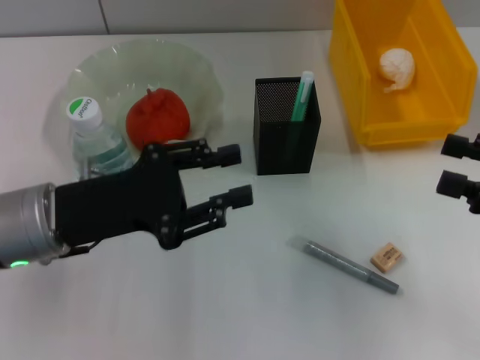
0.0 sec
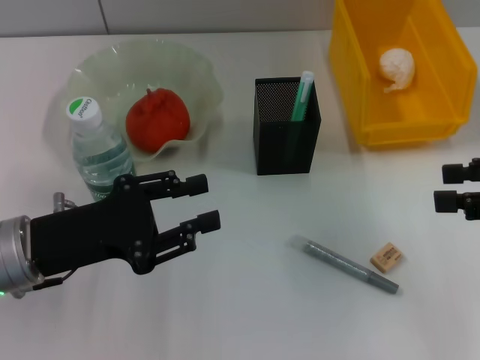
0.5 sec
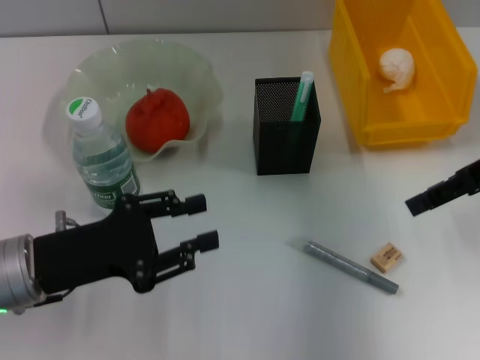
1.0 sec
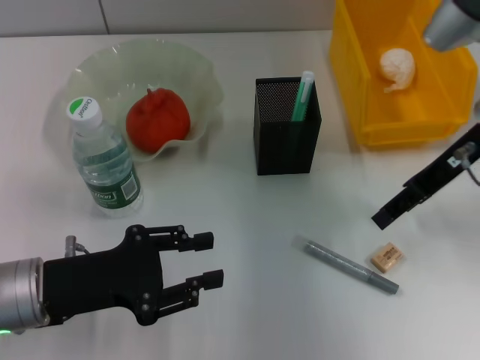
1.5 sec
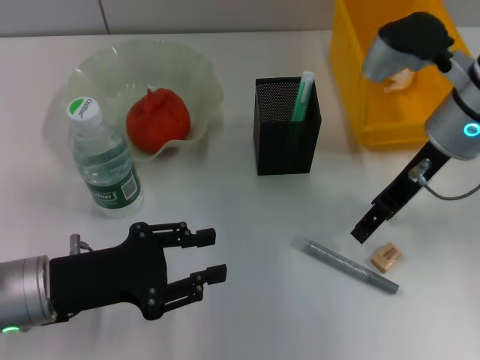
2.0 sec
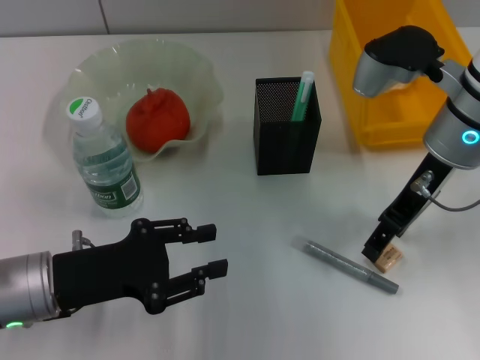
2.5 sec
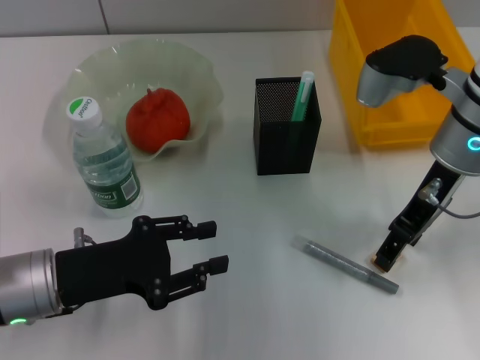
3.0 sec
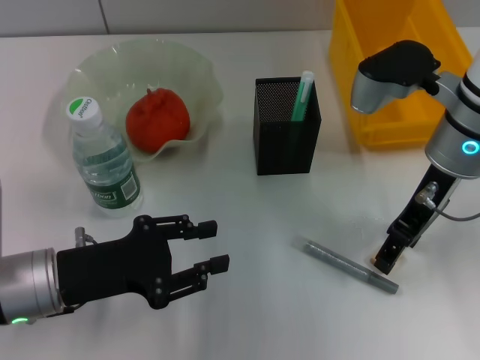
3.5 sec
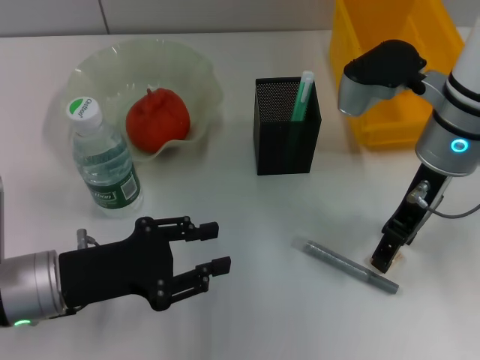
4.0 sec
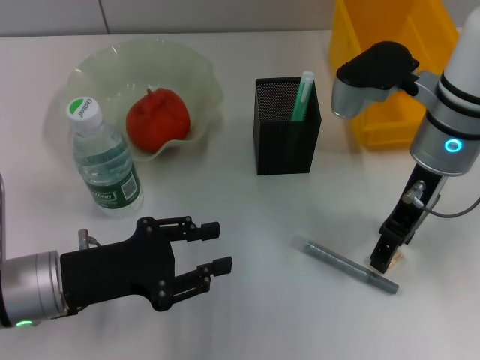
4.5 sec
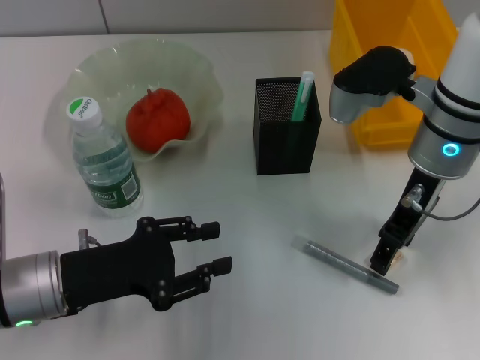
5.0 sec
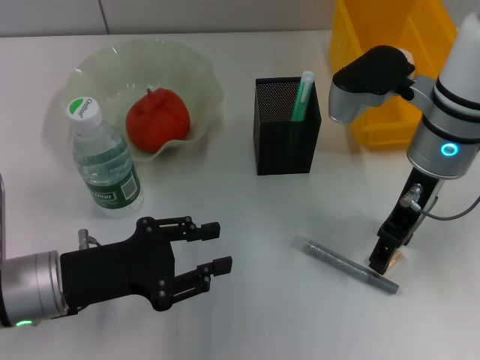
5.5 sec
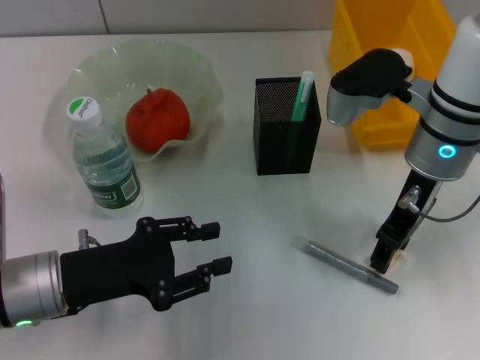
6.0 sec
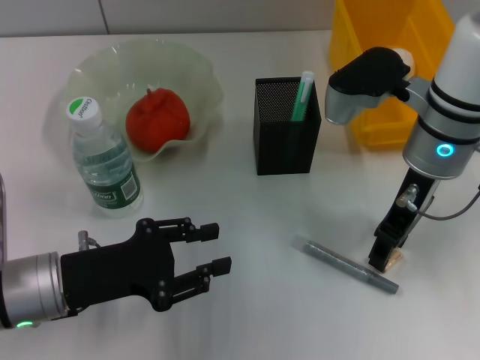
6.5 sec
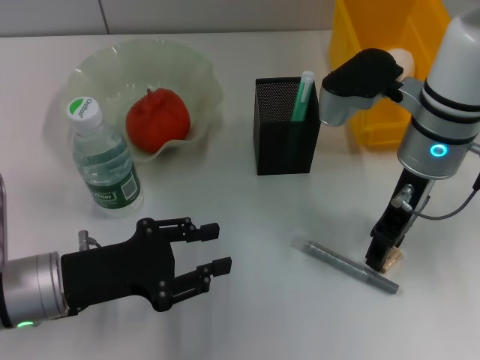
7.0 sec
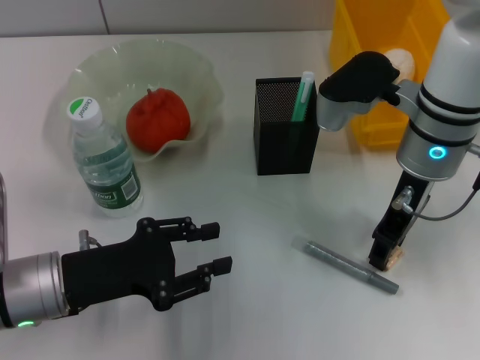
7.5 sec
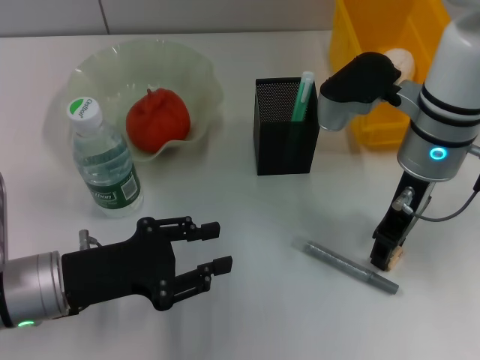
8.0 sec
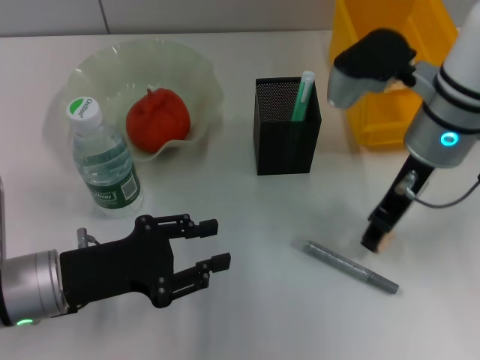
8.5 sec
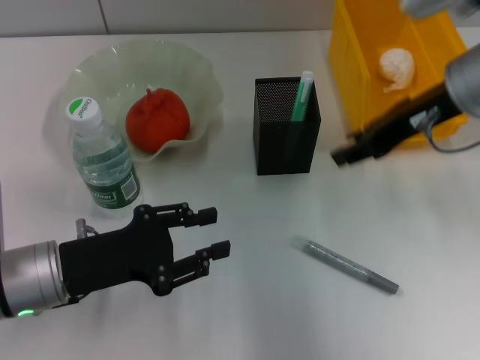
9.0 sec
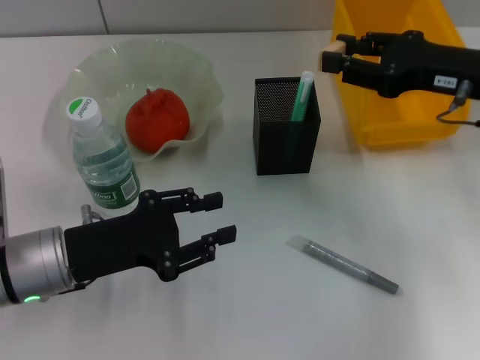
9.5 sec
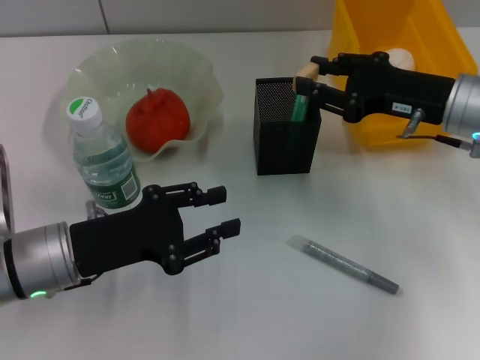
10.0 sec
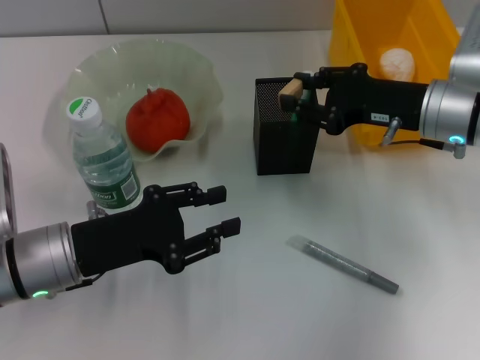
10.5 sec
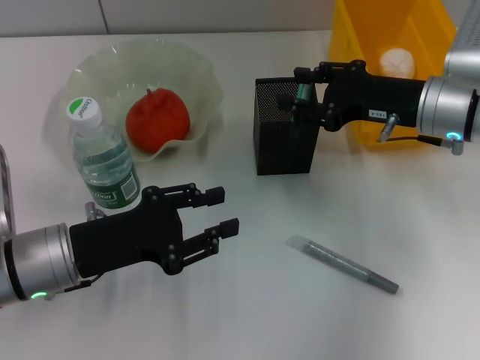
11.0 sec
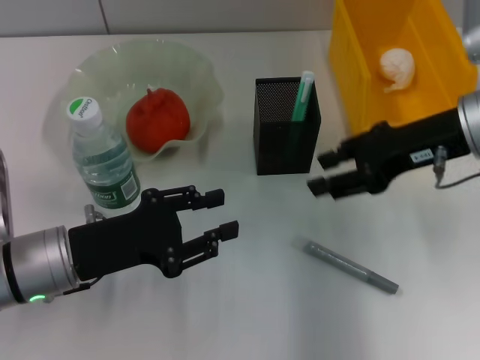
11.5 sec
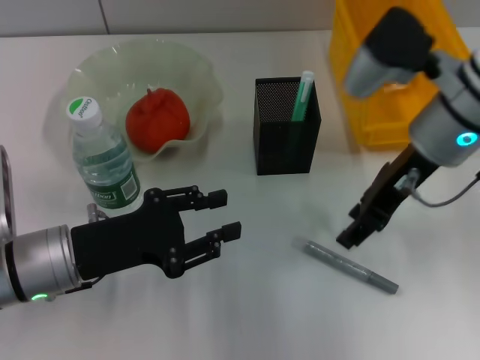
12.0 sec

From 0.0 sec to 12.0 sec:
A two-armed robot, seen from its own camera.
Step, from 0.0 sec to 7.5 sec: Grab the eraser with the right hand.
Step, from 8.0 sec to 11.0 sec: Put the eraser into the pen holder with the right hand.
From 0.0 sec to 2.0 sec: The right gripper goes about 20 cm to the left and forward; the left gripper shifts by about 5 cm.
From 2.0 sec to 4.0 sec: There are only small adjustments of the grippers.
From 4.0 sec to 6.0 sec: Both grippers stay about where they are.
From 6.0 sec to 8.0 sec: The right gripper closes.
From 8.0 sec to 10.0 sec: The right gripper travels to the right by approximately 10 cm.
From 10.0 sec to 12.0 sec: The right gripper shifts about 10 cm to the left and upward.

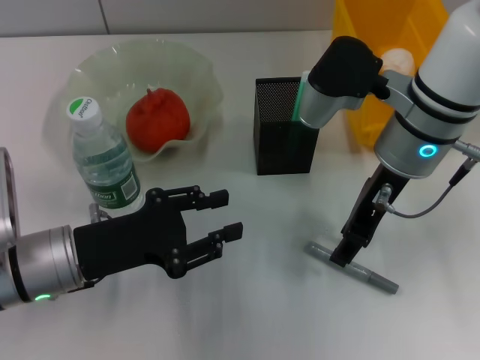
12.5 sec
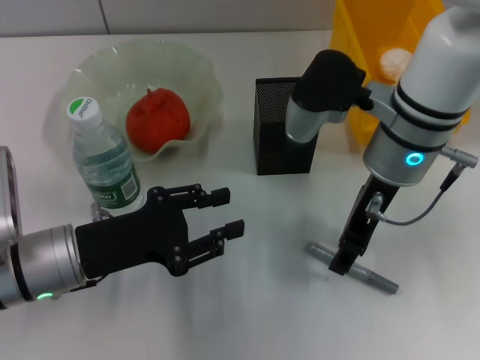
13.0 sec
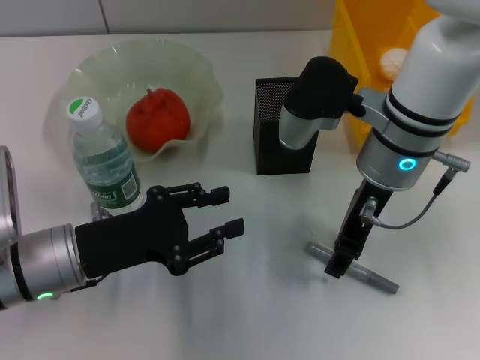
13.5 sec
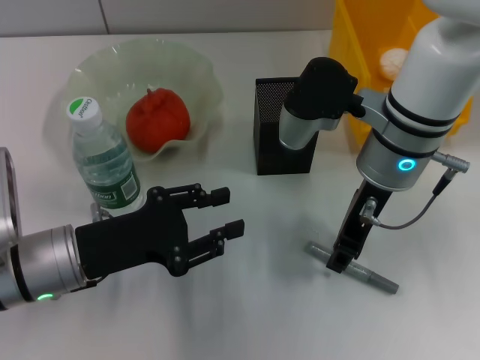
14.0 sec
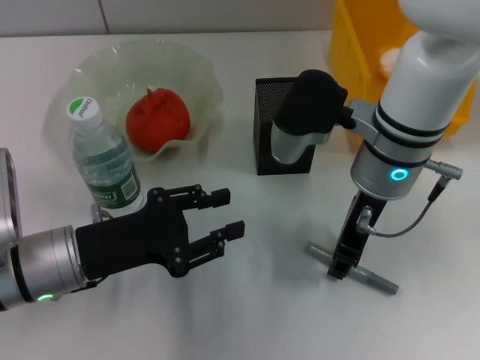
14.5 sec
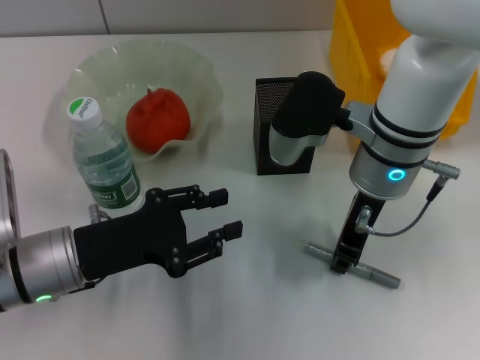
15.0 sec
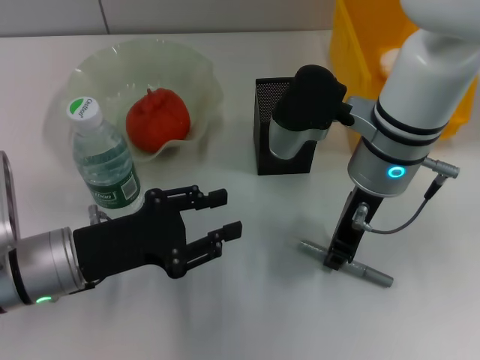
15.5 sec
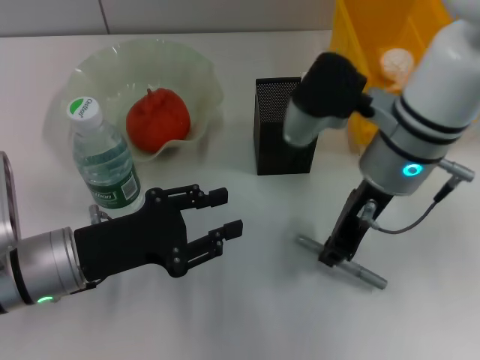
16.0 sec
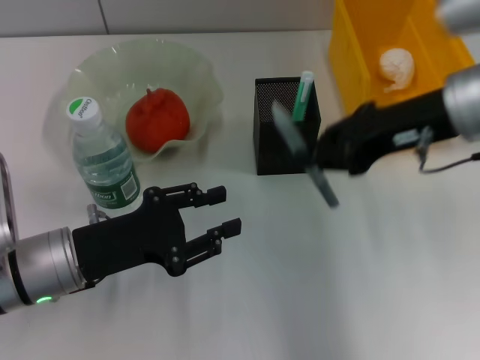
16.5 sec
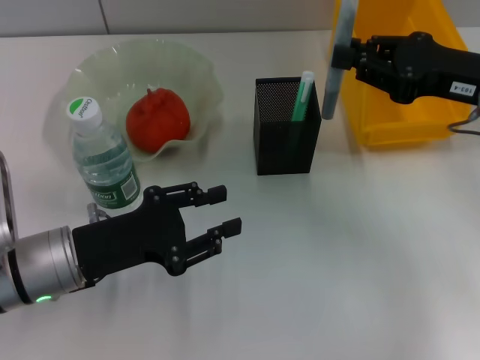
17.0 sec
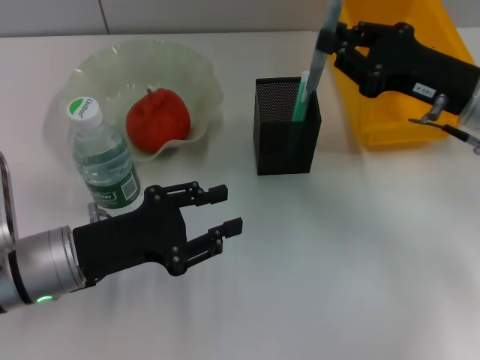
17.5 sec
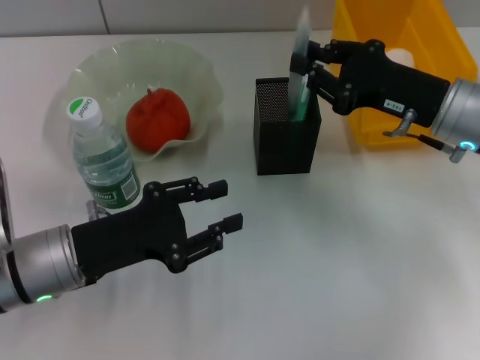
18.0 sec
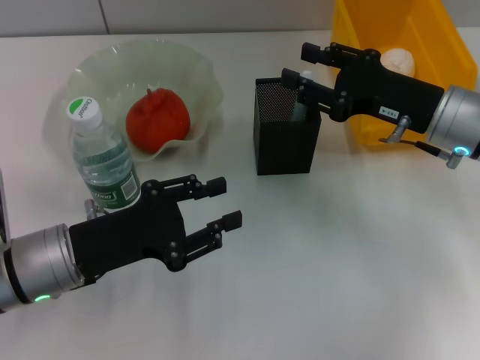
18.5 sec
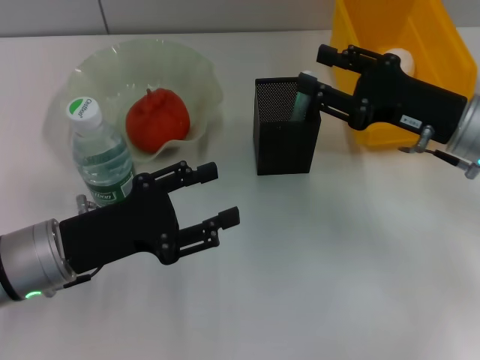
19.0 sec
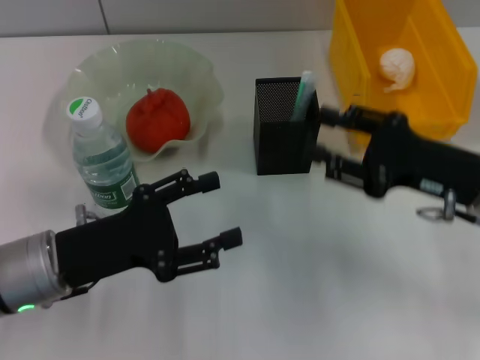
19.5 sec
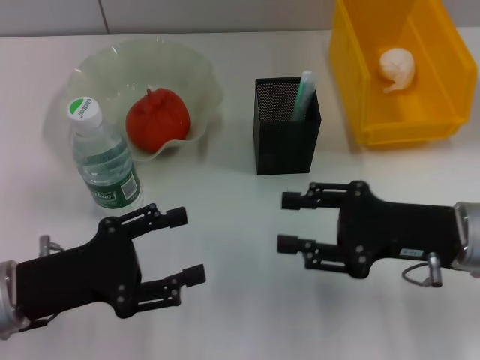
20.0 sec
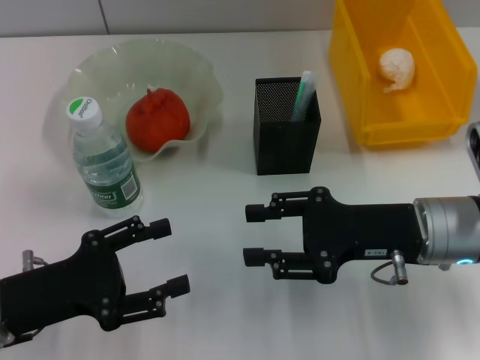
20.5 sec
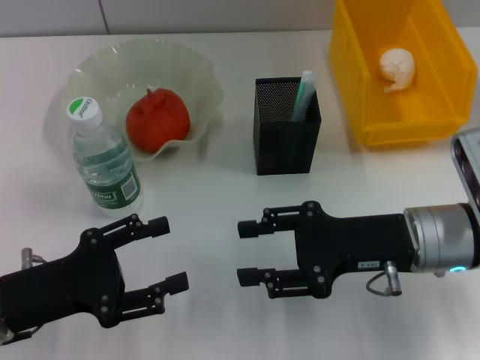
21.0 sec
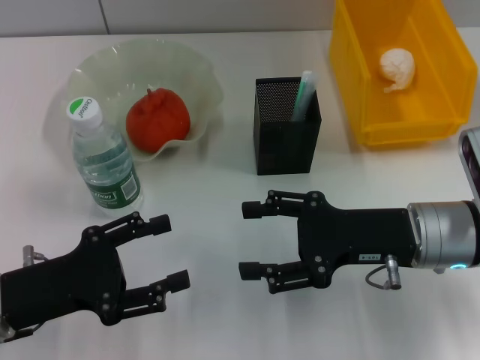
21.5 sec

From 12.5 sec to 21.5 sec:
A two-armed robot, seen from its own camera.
Step, from 12.5 sec to 15.0 sec: Grab the gray glue with the right hand.
Step, from 15.5 sec to 18.0 sec: Place the gray glue into the pen holder with the right hand.
From 12.5 sec to 14.5 sec: The grippers make only small movements.
From 14.5 sec to 17.0 sec: The right gripper moves to the right, roughly 15 cm.
From 17.0 sec to 19.5 sec: The right gripper moves downward, about 5 cm, and opens up; the left gripper opens its fingers.
From 19.5 sec to 21.5 sec: The left gripper ends up approximately 5 cm from where it was; the right gripper heads to the left, covering about 5 cm.

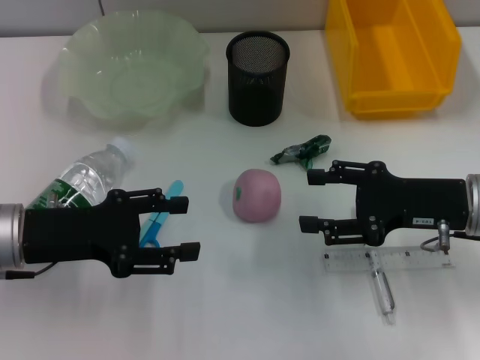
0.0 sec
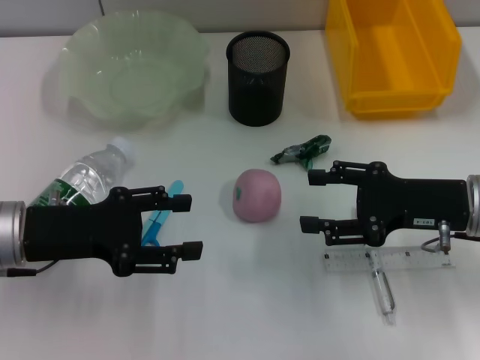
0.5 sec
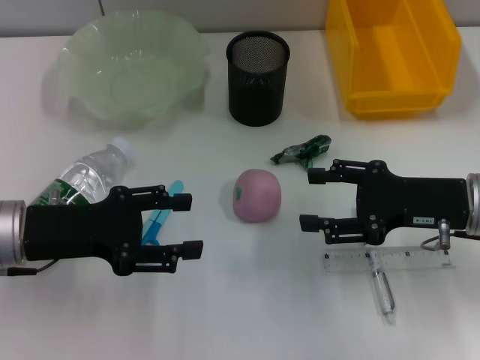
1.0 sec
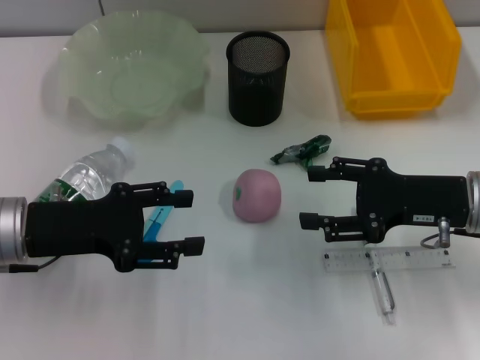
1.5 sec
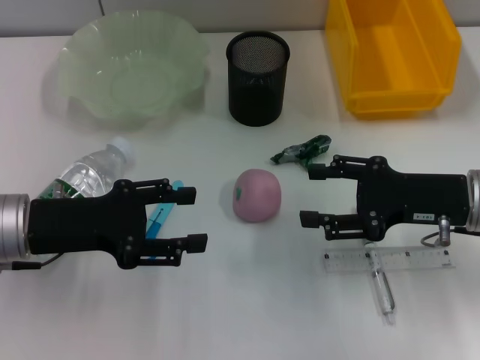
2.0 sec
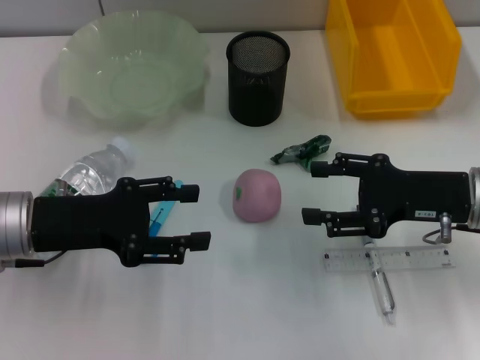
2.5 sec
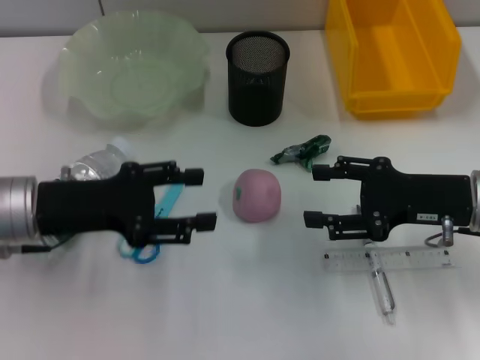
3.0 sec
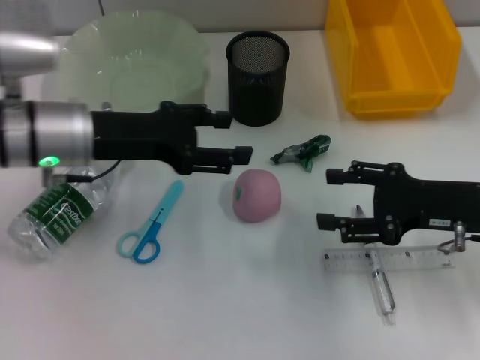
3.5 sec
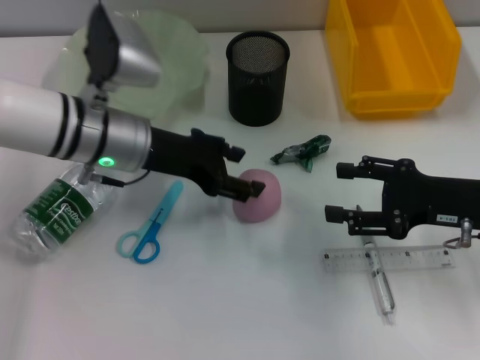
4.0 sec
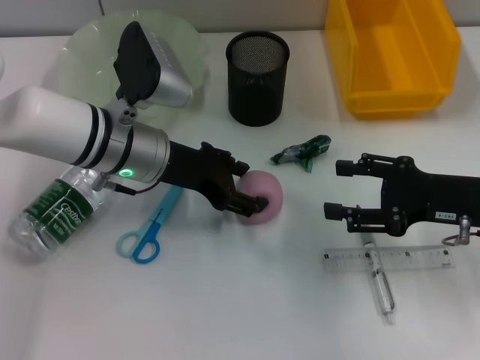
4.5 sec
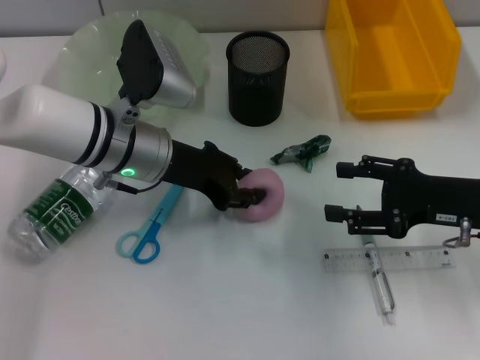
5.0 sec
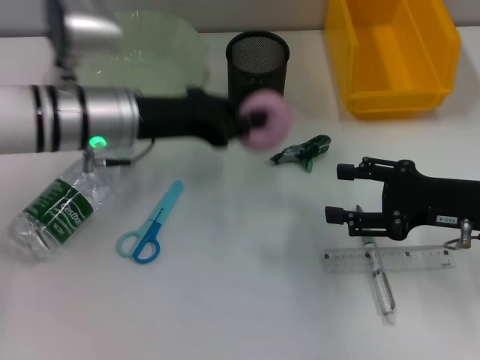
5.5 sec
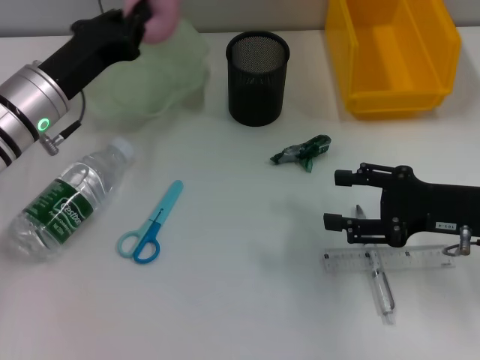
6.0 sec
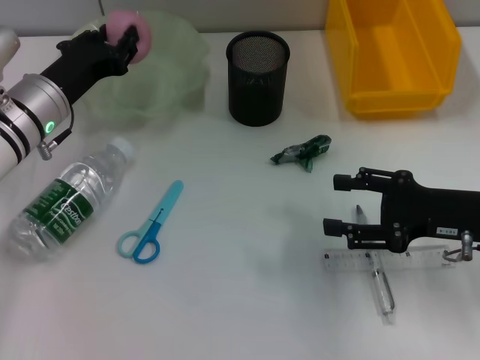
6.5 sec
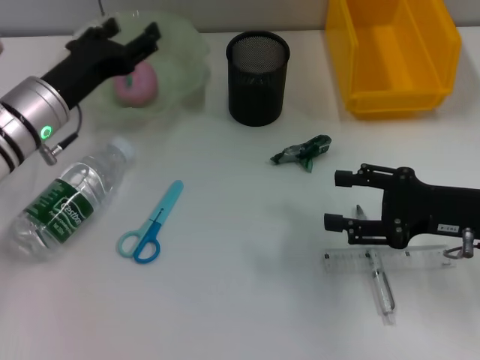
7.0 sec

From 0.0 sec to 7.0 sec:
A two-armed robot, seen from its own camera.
Step, from 0.0 sec to 4.5 sec: Grab the peach with the left hand.
Step, from 5.5 sec to 6.5 sec: Place the peach into the fruit bowl with the left hand.
From 0.0 sec to 2.0 sec: Both grippers stay put.
From 2.0 sec to 3.5 sec: The left gripper travels forward and to the right by about 10 cm.
From 3.5 sec to 5.0 sec: The left gripper moves to the right, about 5 cm.
From 5.0 sec to 7.0 sec: The left gripper is displaced to the left by about 10 cm, and closes and opens again.
